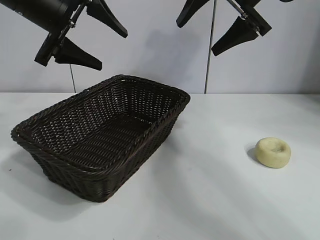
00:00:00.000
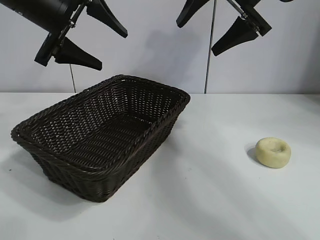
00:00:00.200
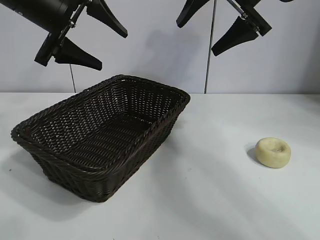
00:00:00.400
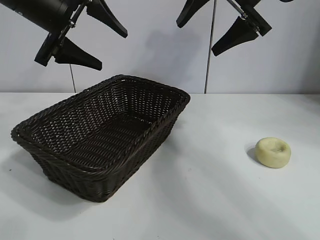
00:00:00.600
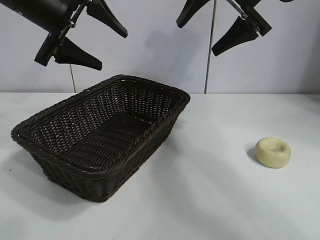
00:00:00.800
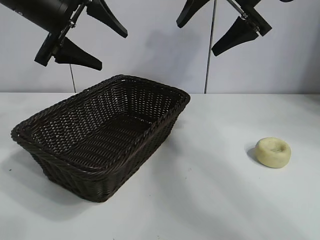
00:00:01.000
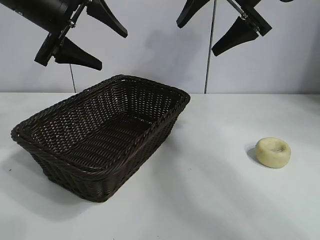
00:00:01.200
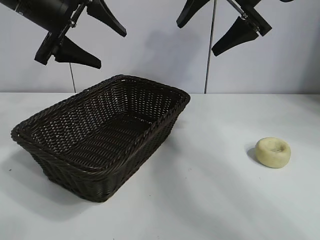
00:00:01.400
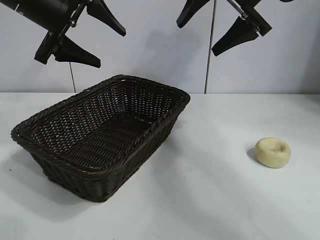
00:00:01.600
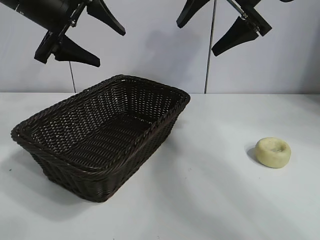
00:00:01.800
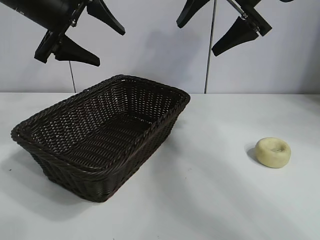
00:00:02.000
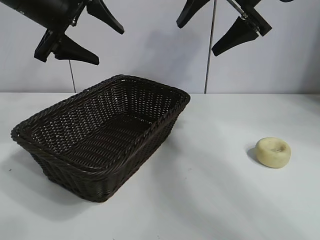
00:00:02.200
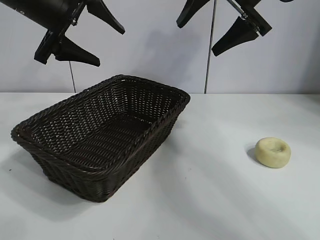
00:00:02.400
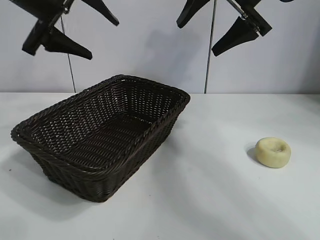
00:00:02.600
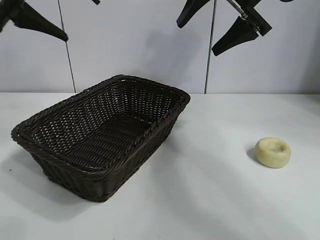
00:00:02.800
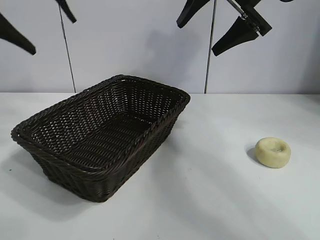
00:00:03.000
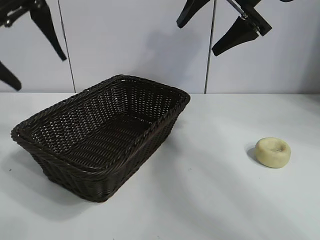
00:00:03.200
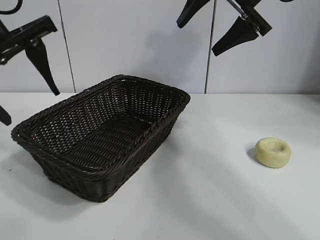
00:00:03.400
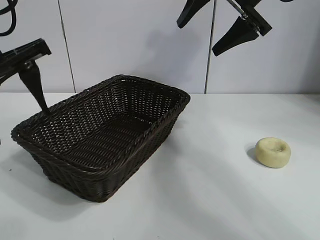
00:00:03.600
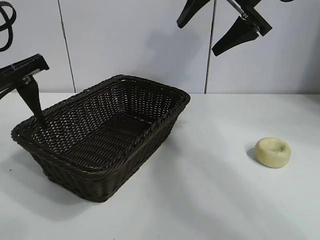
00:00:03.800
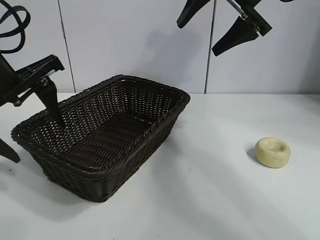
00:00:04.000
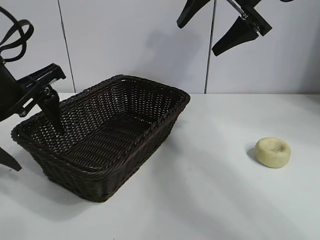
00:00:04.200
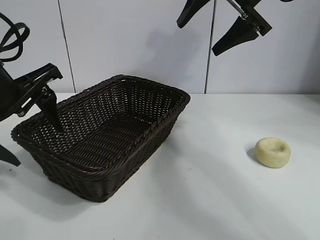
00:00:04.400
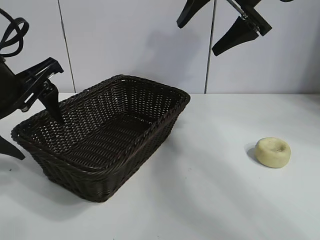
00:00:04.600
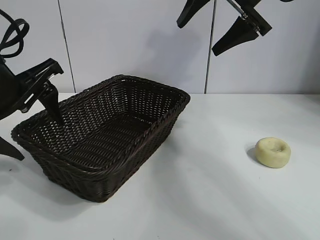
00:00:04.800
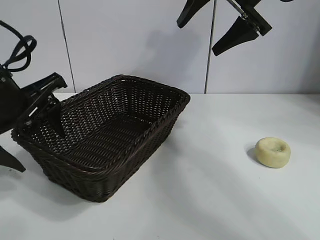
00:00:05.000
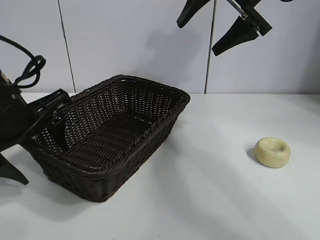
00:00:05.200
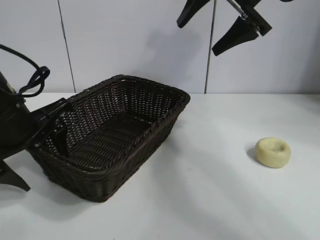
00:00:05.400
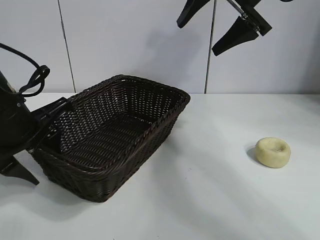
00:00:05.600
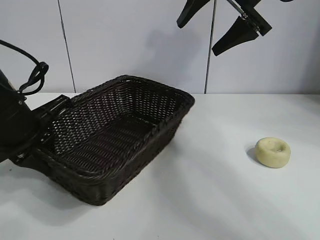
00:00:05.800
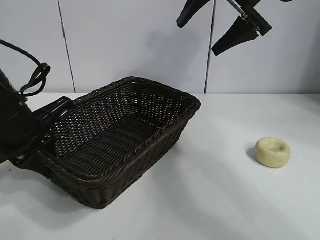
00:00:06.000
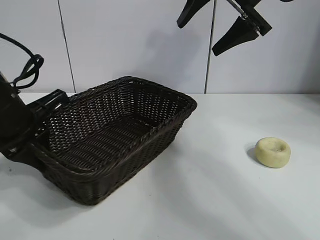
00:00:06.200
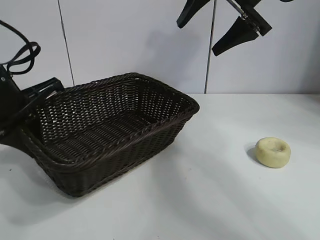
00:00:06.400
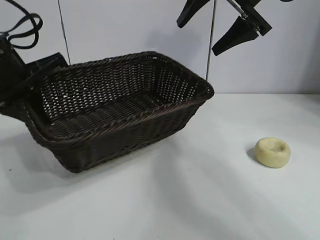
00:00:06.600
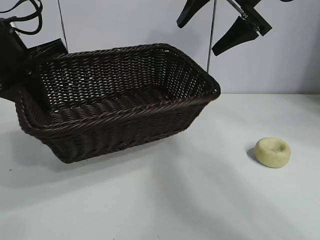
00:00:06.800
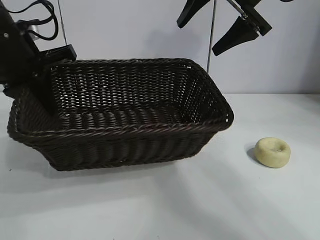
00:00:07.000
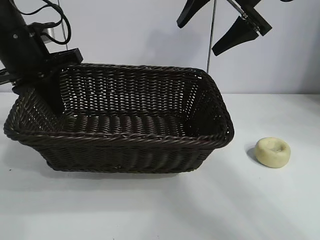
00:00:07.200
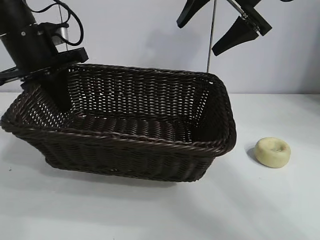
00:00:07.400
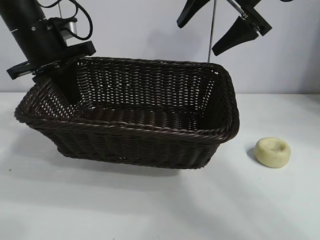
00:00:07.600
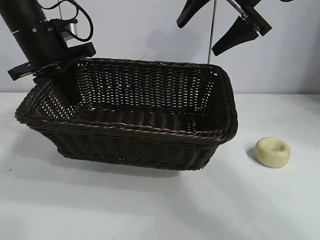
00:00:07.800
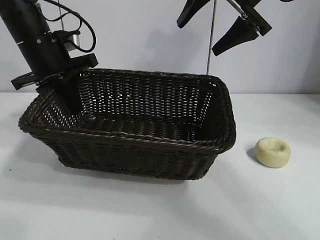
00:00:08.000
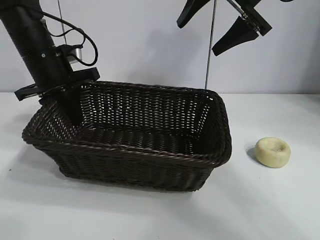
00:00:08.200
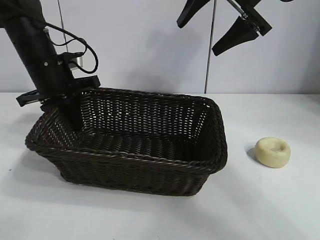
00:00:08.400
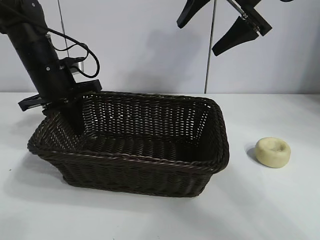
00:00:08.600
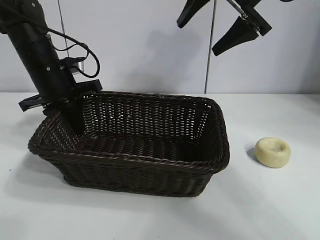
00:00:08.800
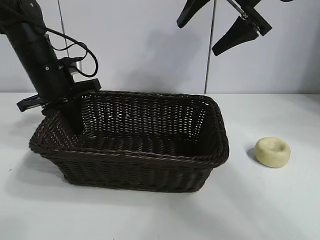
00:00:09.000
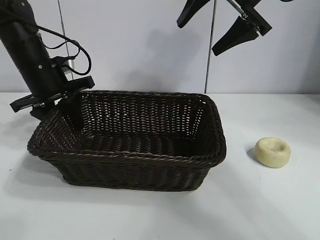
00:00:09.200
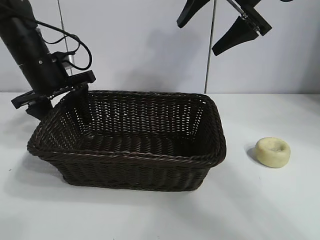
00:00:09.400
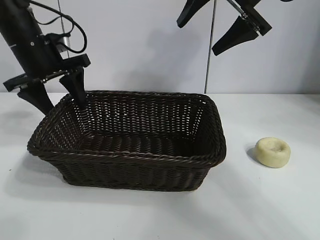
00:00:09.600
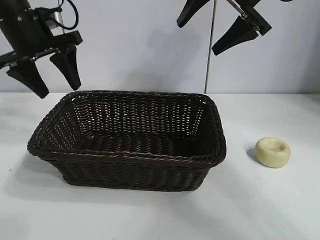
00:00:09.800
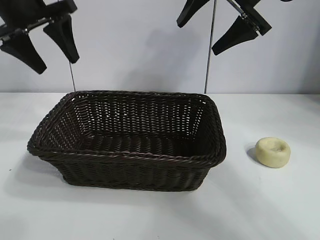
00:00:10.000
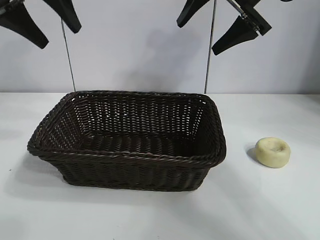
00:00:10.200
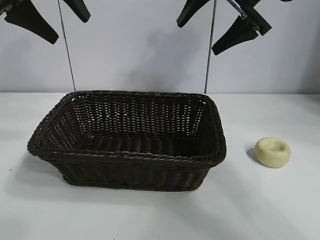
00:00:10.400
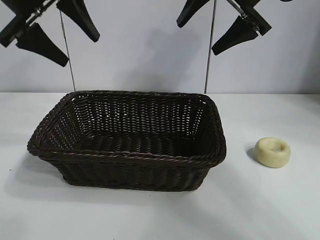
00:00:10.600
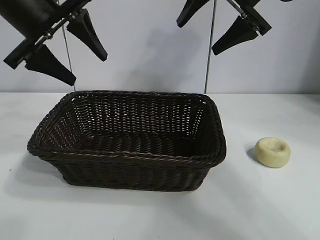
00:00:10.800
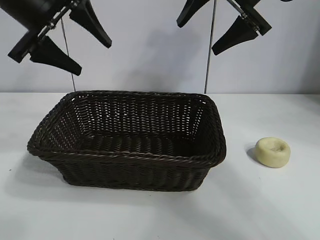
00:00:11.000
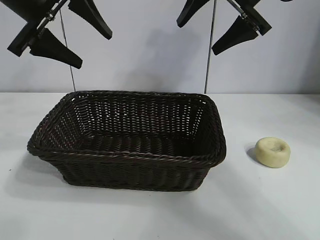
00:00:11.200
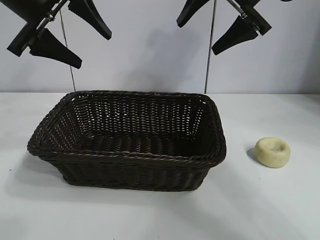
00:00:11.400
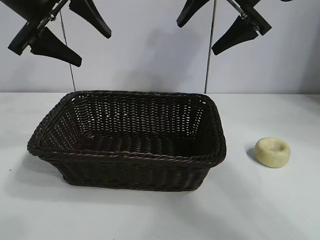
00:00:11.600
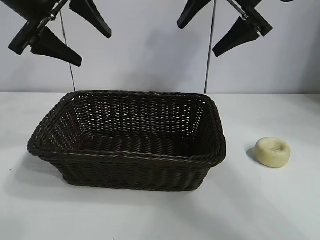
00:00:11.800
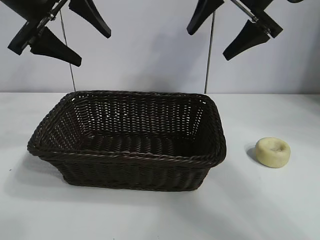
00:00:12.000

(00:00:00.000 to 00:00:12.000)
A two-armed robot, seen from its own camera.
Task of the whole recording: pick up the egg yolk pastry and put it into the basket.
Step, 00:00:01.400 - 00:00:05.600: Grasp the basket with left gripper.
Step, 00:00:06.000 - 00:00:09.200: Place the basket in the center of view with left gripper.

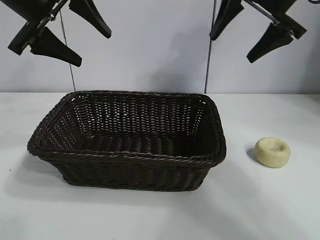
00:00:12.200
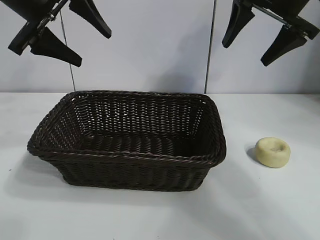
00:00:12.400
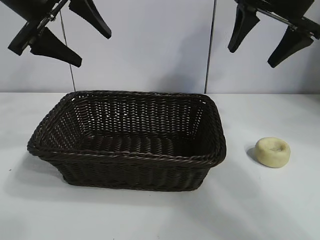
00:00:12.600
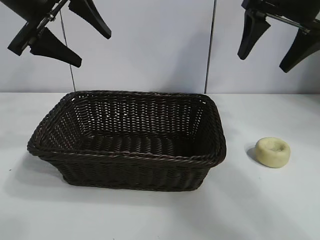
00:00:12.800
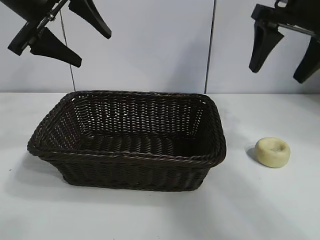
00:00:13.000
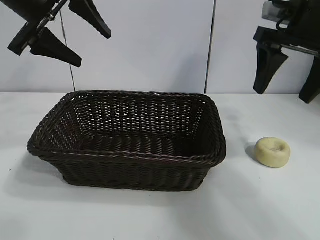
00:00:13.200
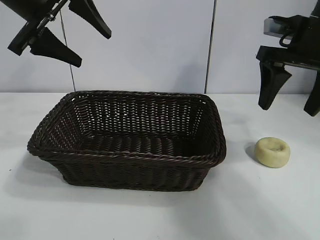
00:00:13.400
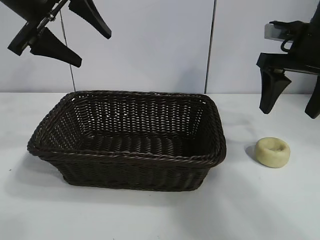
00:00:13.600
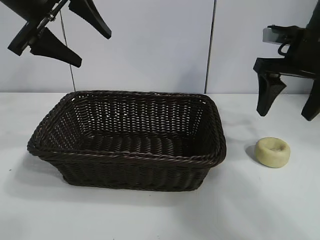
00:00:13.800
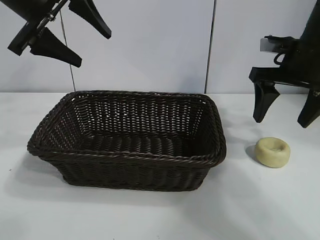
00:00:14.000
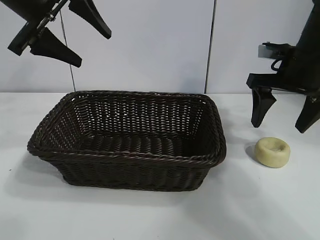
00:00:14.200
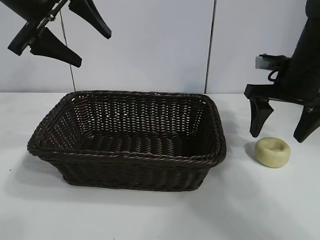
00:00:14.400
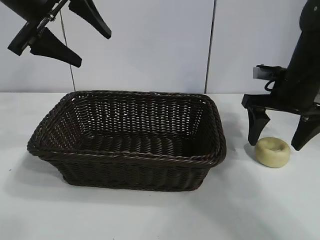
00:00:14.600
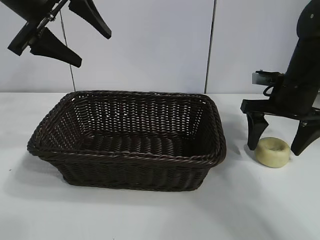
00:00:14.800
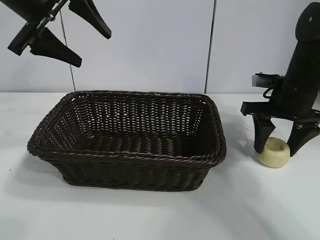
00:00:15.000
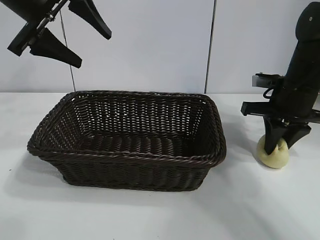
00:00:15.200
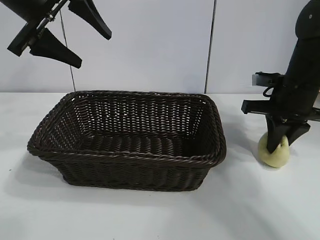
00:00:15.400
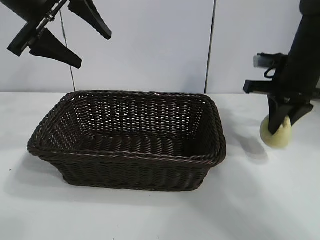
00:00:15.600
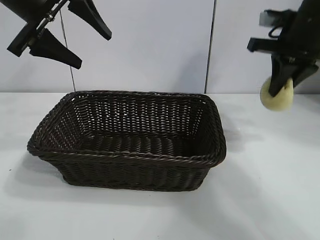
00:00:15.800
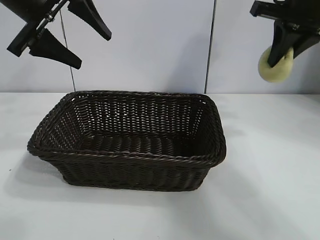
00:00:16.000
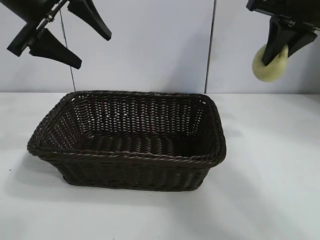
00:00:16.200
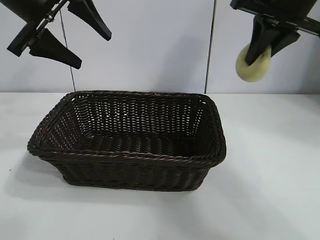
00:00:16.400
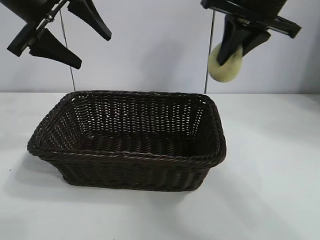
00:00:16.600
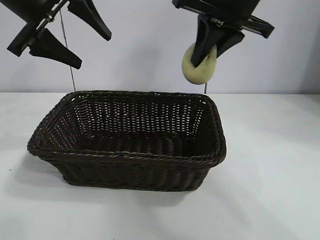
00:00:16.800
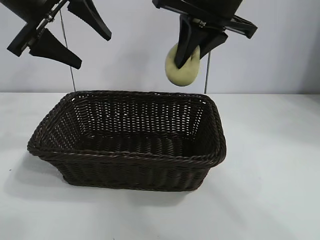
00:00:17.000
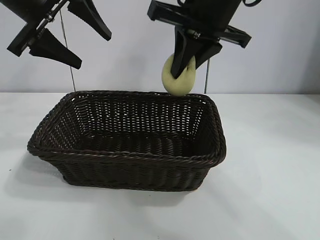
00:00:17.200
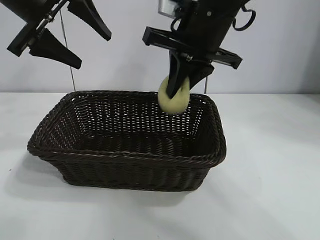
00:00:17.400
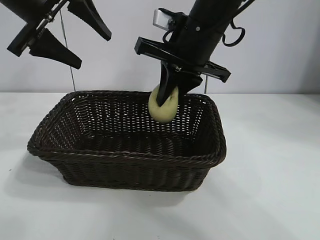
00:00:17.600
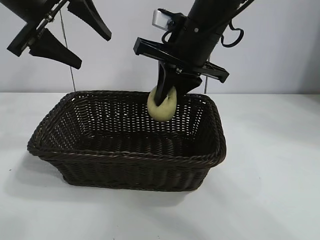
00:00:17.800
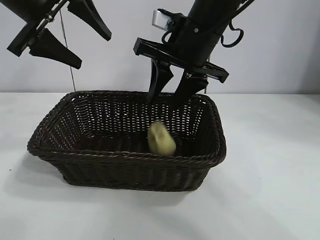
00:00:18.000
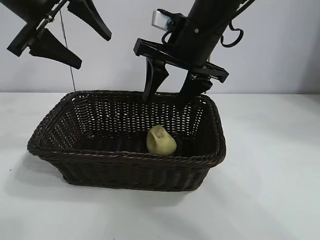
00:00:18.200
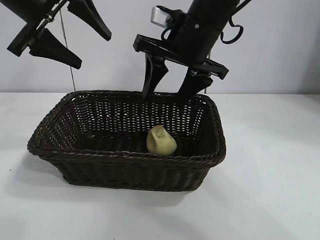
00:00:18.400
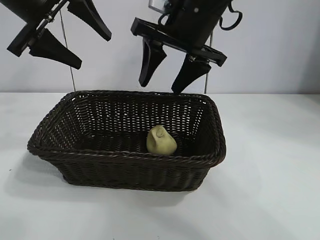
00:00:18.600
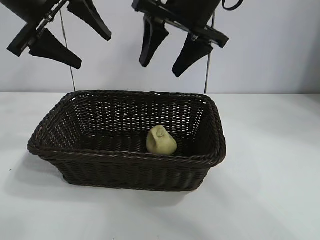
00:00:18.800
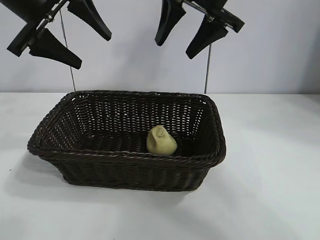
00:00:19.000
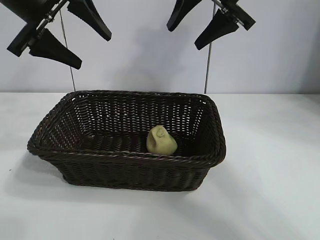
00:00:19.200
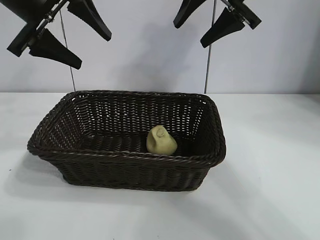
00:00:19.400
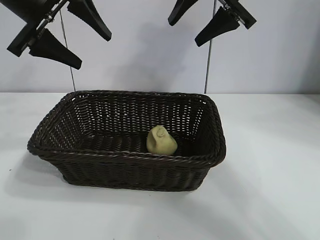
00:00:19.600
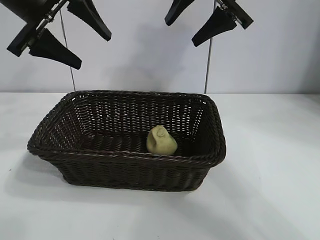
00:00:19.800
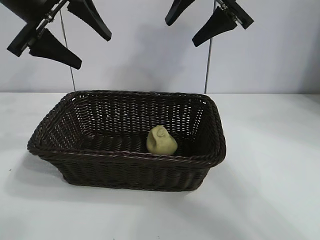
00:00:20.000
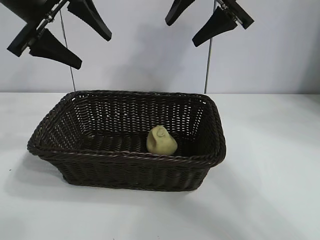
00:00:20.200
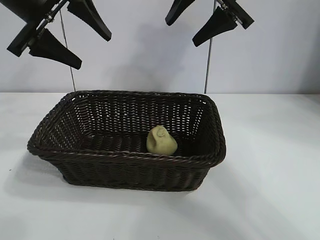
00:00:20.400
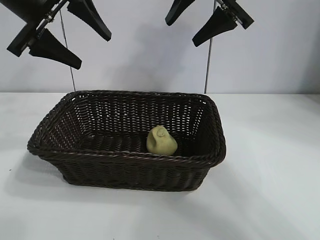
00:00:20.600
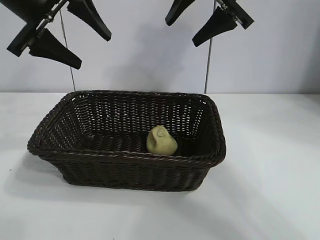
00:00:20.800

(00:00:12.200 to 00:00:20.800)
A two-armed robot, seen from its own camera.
Task of the whole recording: pick up the egg yolk pastry and put it into the basket.
Step, 00:00:12.200 - 00:00:15.200: Grasp egg yolk pastry with right gripper.
Step, 00:00:15.400 - 00:00:18.000: Place the egg yolk pastry in the basket with right gripper.
